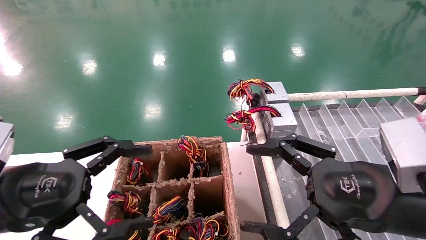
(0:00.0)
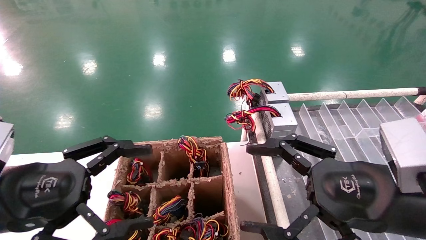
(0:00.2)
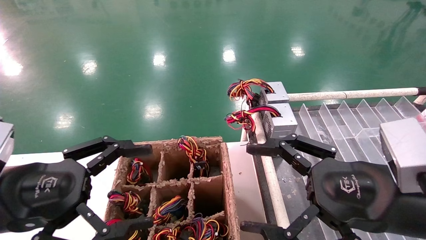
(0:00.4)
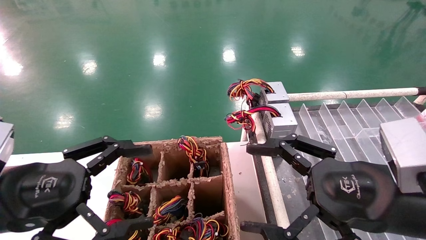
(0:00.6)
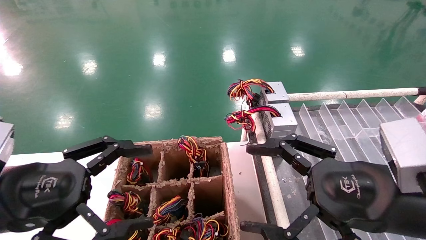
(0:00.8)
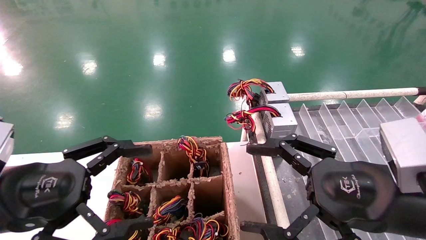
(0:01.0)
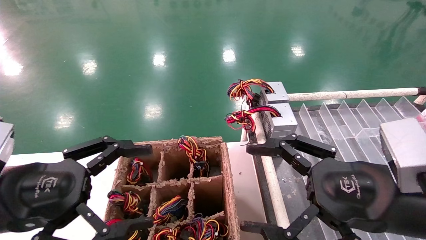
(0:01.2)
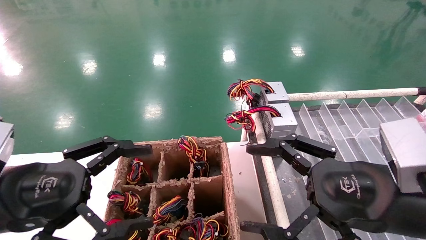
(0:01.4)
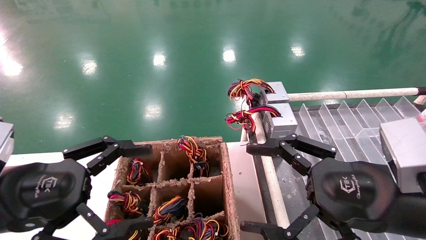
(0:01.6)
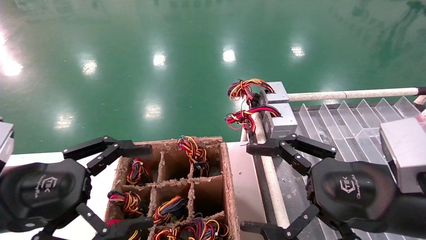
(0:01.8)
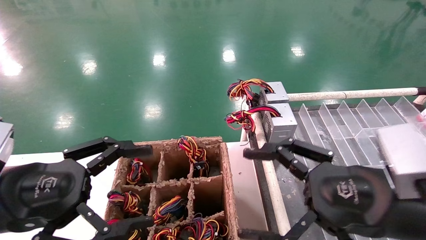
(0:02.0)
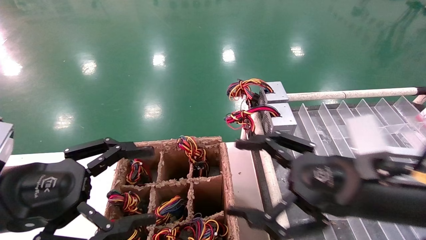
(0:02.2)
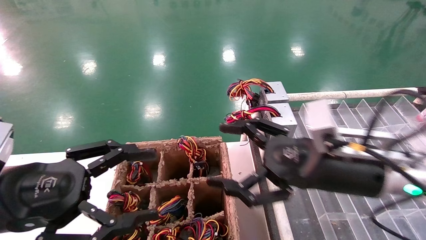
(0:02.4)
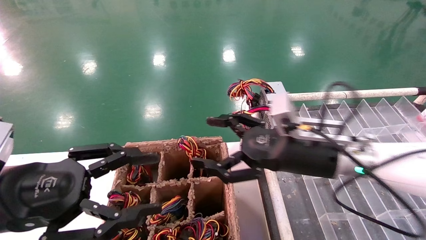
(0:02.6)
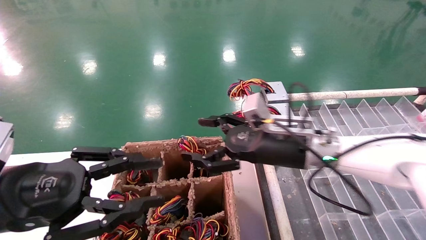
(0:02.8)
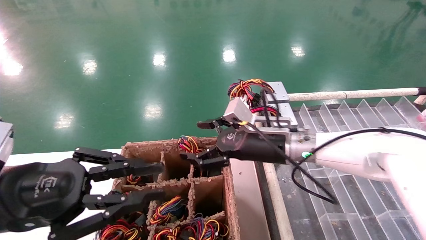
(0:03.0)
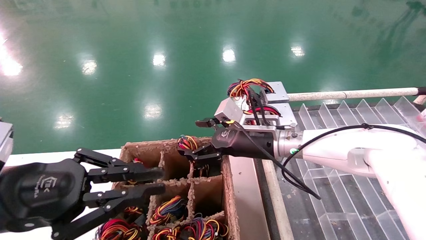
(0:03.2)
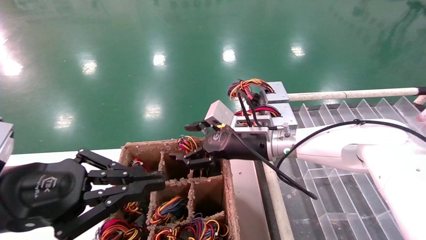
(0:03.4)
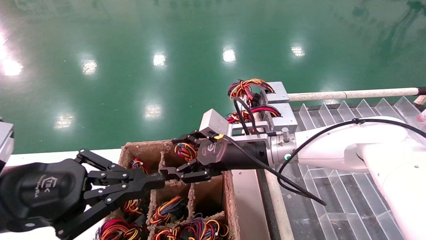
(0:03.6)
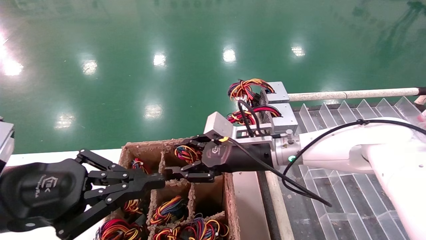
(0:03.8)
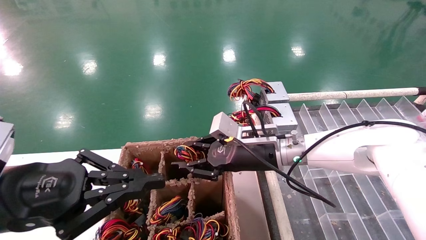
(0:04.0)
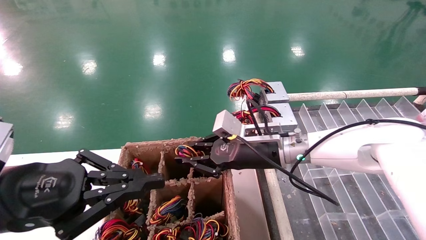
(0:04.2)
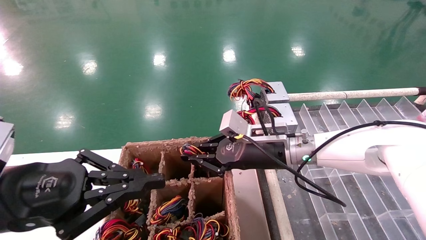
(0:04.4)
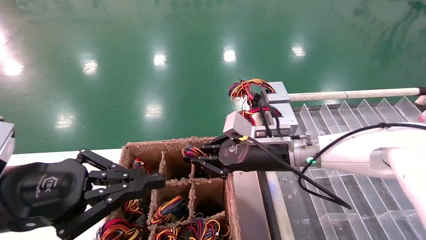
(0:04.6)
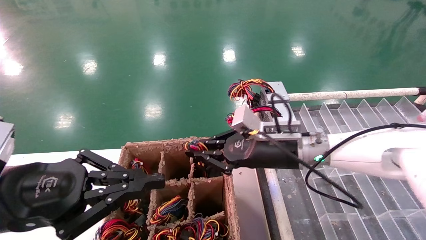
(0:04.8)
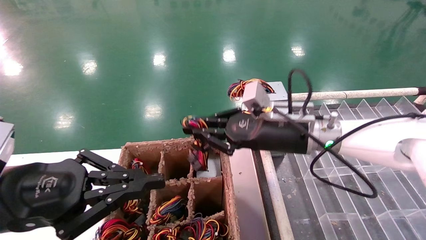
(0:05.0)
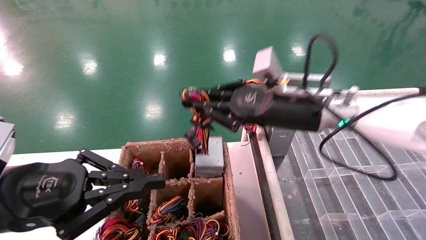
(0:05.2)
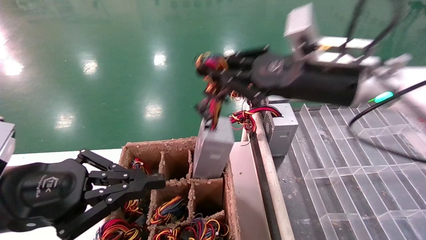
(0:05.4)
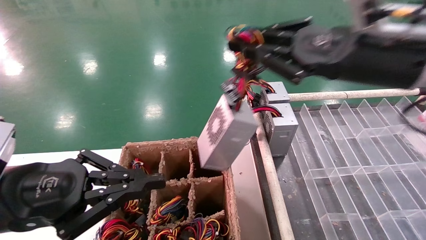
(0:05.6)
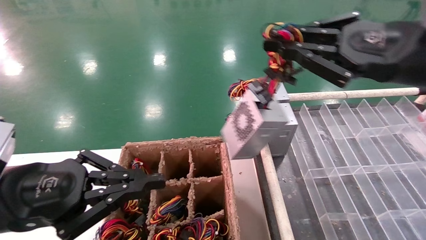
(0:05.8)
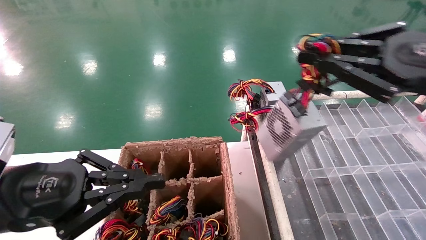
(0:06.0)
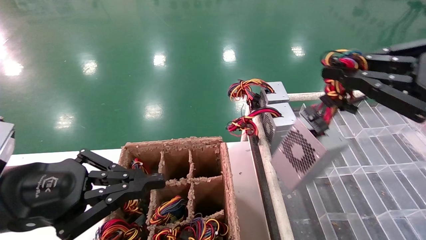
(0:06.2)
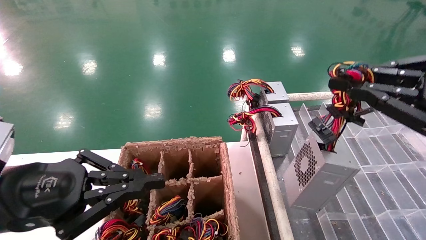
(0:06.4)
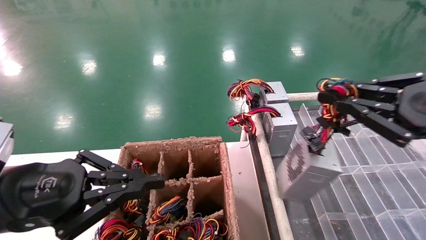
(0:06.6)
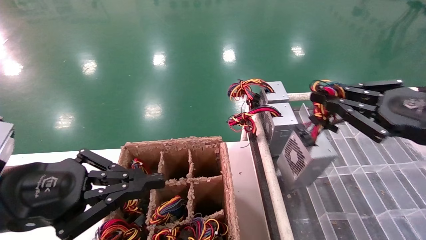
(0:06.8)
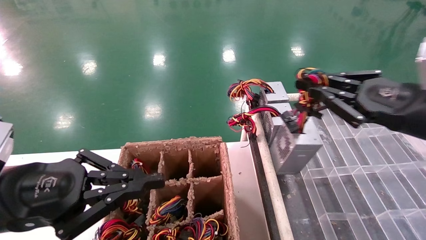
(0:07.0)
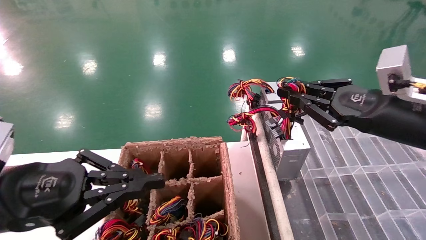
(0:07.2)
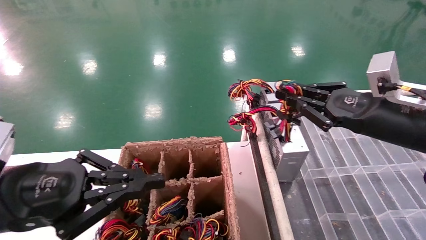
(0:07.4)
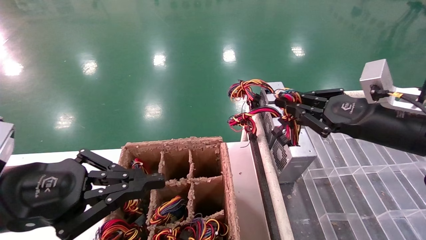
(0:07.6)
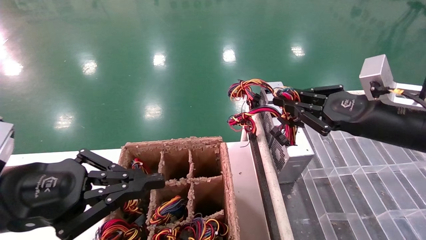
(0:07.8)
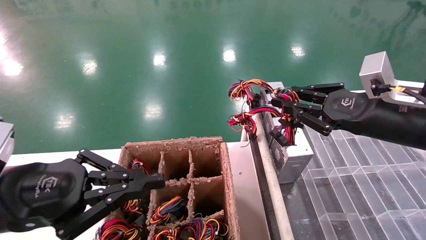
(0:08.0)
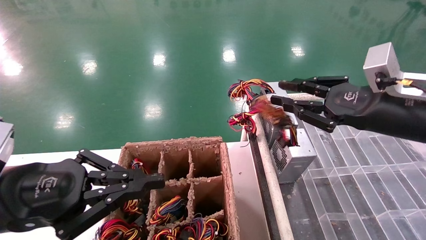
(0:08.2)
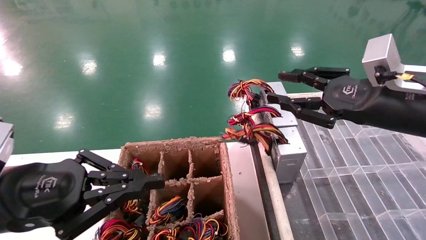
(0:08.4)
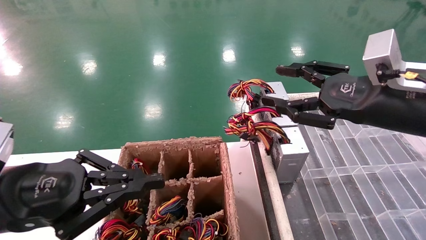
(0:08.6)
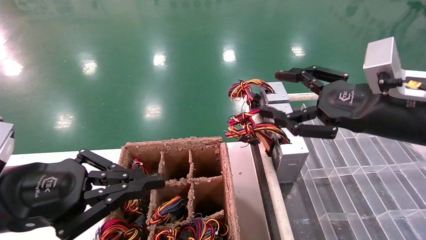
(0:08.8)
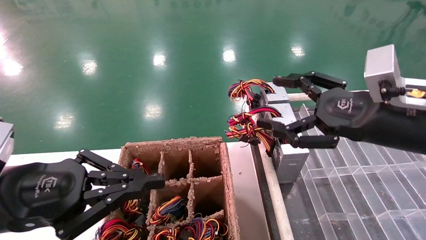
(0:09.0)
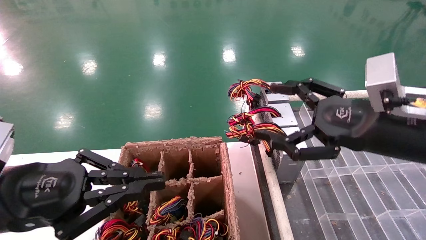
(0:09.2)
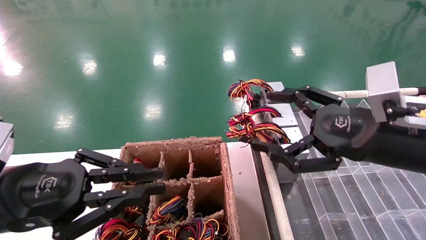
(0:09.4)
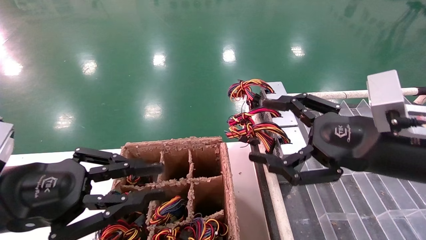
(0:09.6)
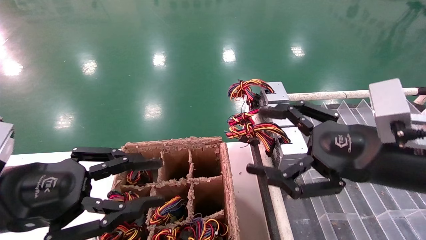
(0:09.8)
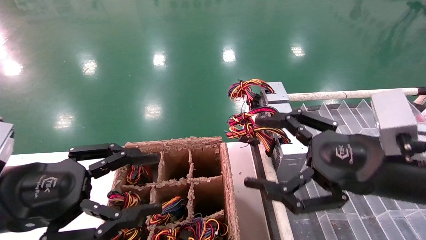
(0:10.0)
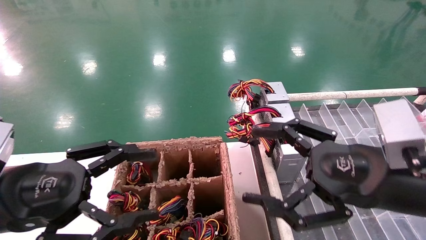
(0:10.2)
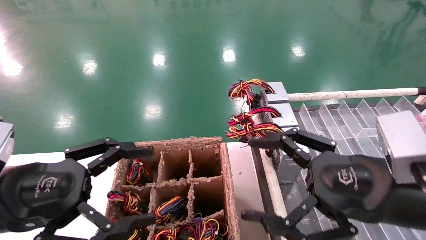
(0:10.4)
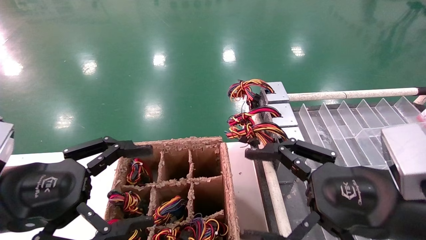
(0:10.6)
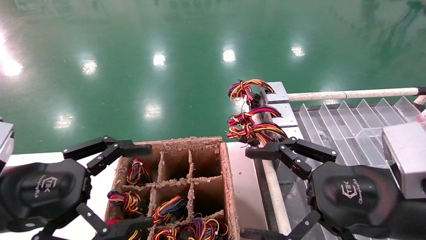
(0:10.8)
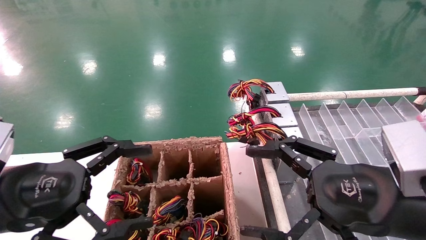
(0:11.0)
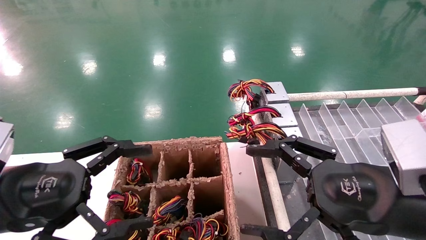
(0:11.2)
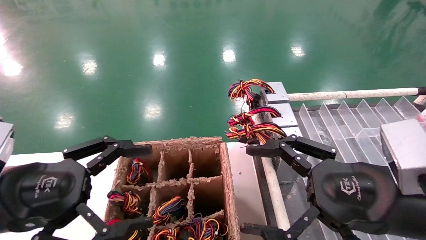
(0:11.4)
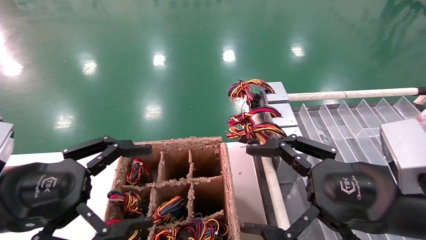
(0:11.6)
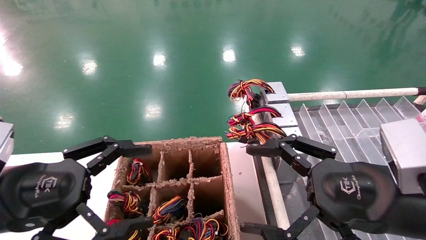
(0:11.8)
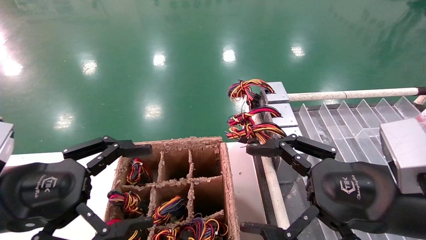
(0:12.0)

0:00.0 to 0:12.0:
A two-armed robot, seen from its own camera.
Step, 0:02.4 to 0:04.6: Grab the main unit power supply from the containment box.
Step, 0:04.8 to 0:08.2: Place the main unit power supply in the designated area.
0:00.0 to 0:01.6: Both grippers stay put.
0:01.6 to 0:03.0: The right gripper shifts about 25 cm forward and to the left. The left gripper closes up.
0:03.0 to 0:04.4: The right gripper closes its fingers; the left gripper closes up.
0:04.4 to 0:06.0: The right gripper travels to the right, backward and upward by approximately 30 cm.
0:06.0 to 0:07.6: The right gripper is displaced downward and forward by about 10 cm.
0:07.6 to 0:09.0: The right gripper ends up about 5 cm from where it was, and opens its fingers.
0:09.0 to 0:10.4: The left gripper opens. Meanwhile the right gripper moves backward and downward, some 10 cm.
0:10.4 to 0:12.0: Both grippers stay about where they are.

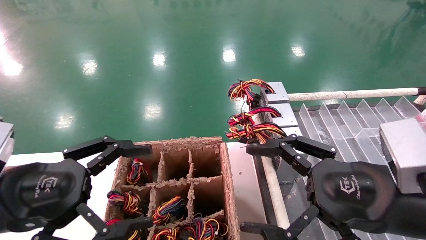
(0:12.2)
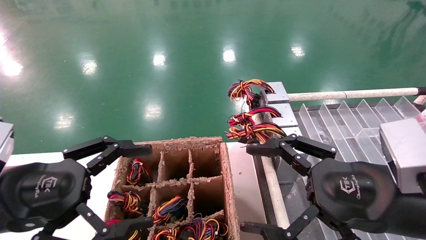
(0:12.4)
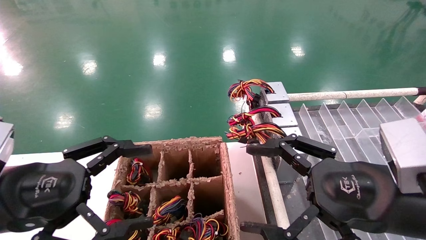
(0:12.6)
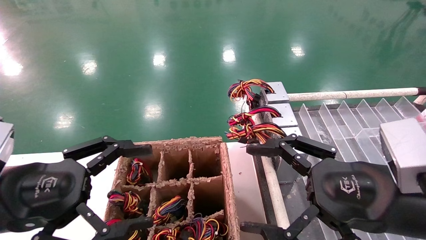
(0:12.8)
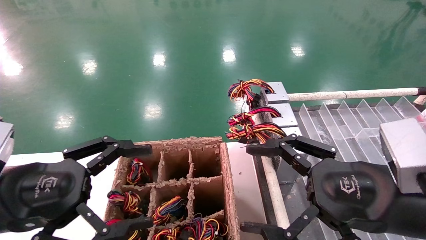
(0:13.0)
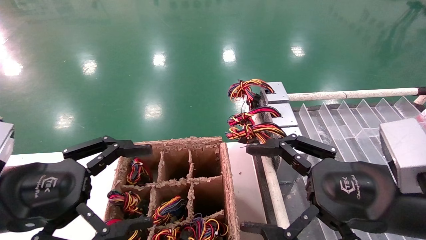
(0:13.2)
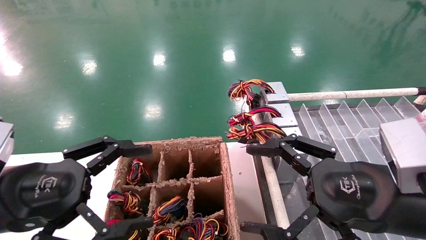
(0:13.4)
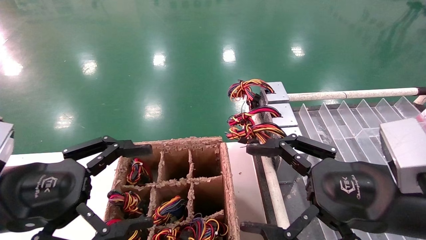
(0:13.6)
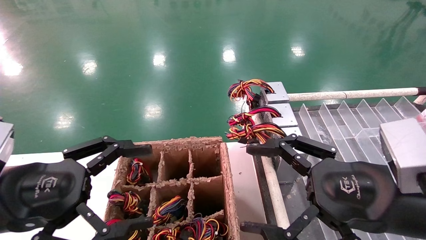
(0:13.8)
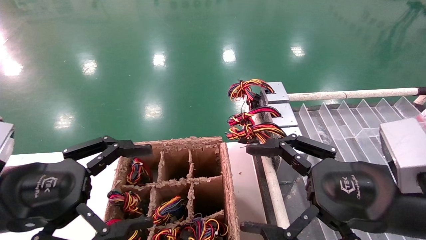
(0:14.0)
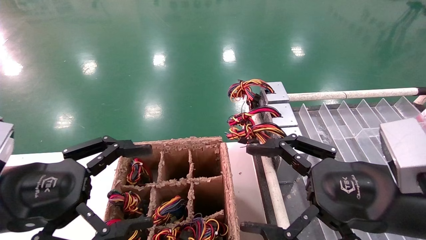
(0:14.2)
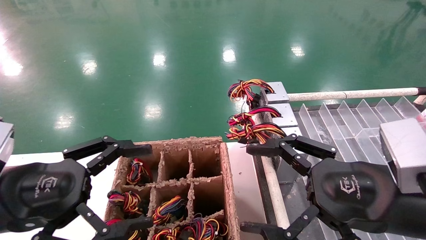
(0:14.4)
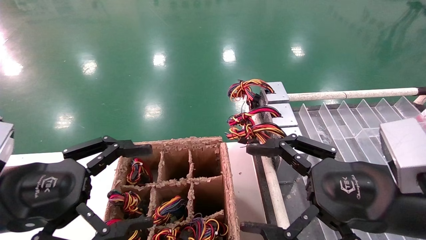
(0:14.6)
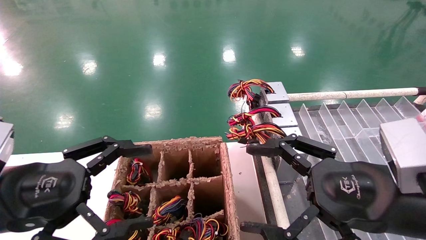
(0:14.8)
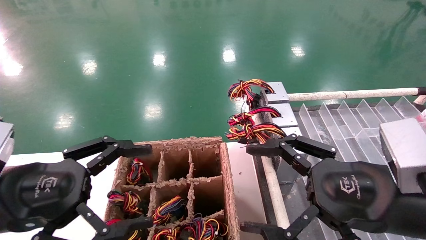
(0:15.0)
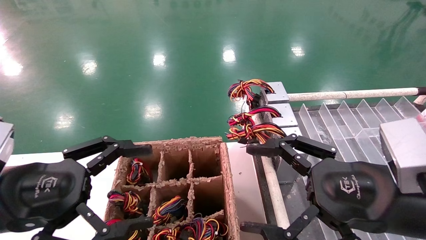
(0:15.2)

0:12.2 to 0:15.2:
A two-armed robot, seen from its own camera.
0:12.2 to 0:15.2: Both grippers stay about where they are.
